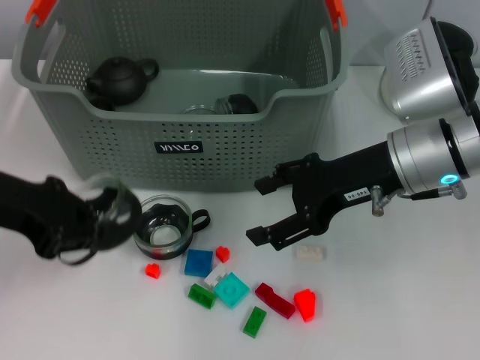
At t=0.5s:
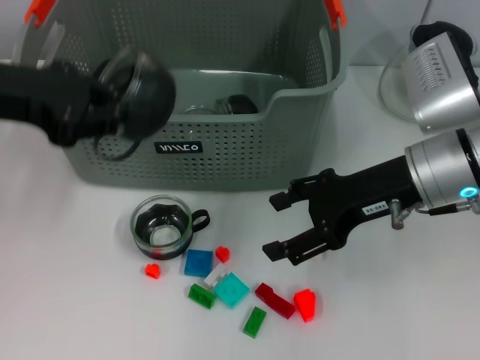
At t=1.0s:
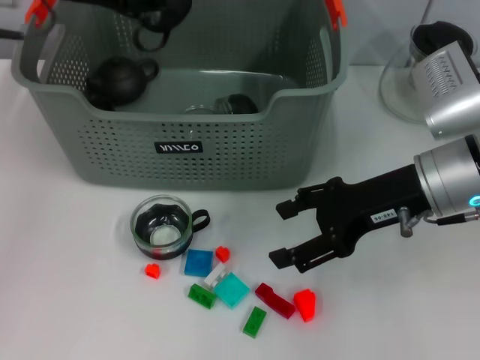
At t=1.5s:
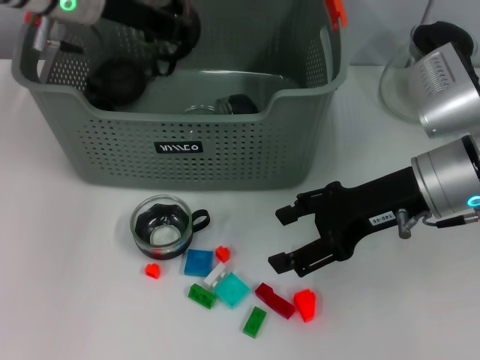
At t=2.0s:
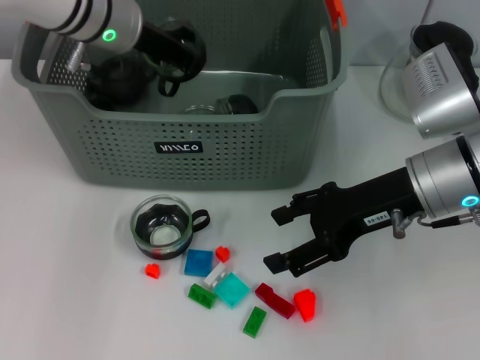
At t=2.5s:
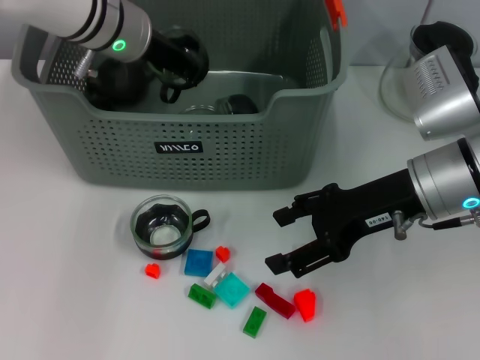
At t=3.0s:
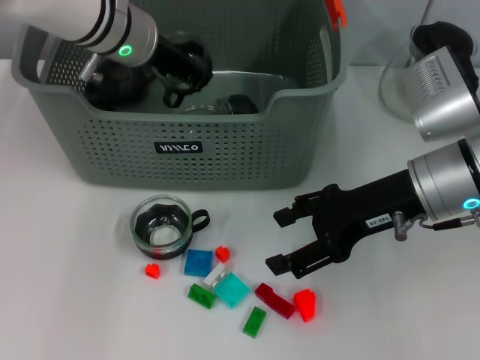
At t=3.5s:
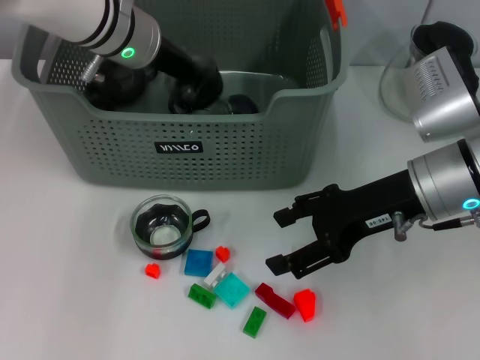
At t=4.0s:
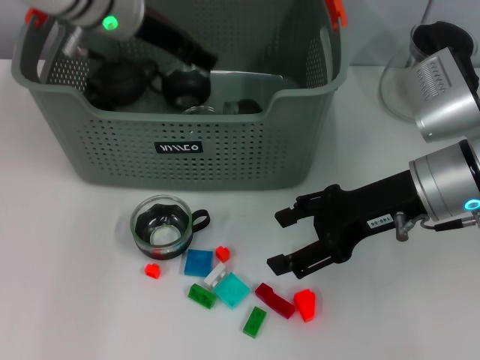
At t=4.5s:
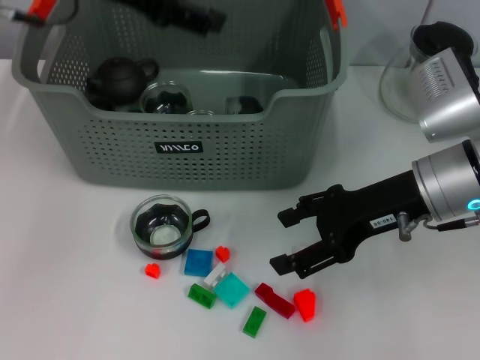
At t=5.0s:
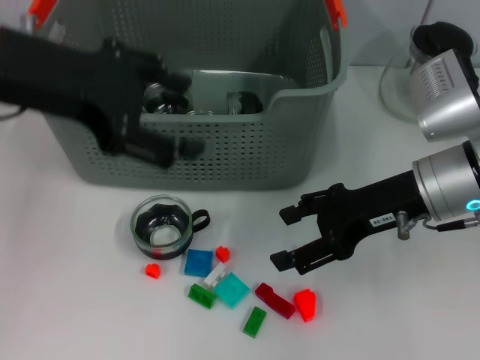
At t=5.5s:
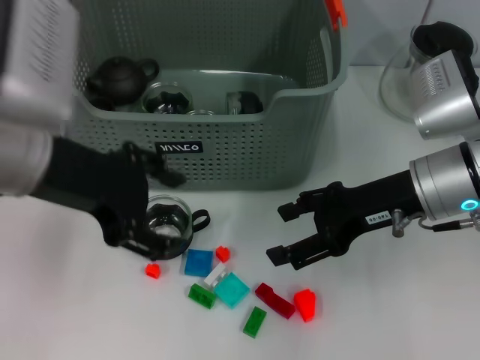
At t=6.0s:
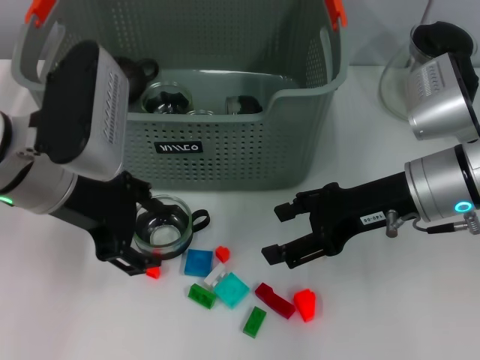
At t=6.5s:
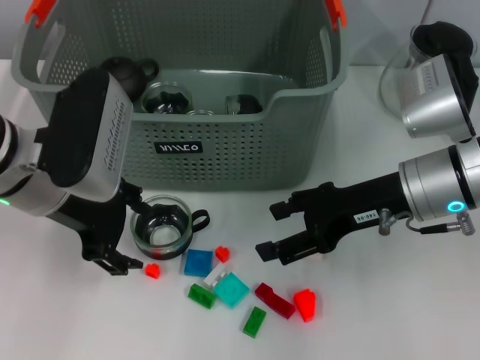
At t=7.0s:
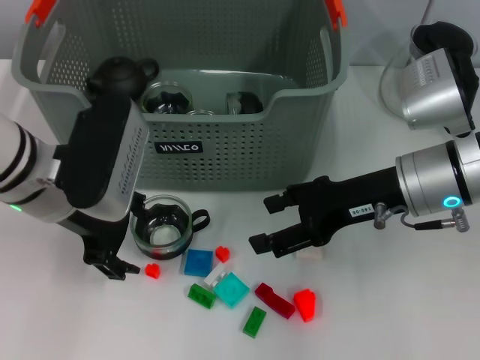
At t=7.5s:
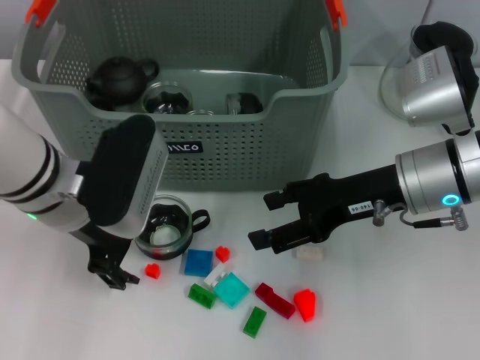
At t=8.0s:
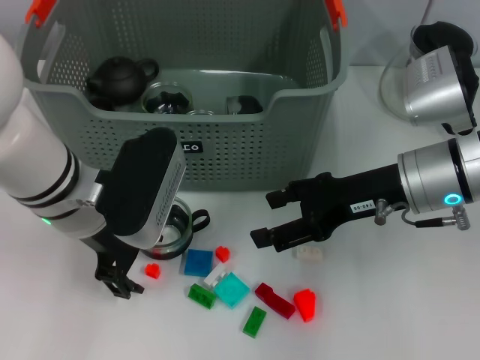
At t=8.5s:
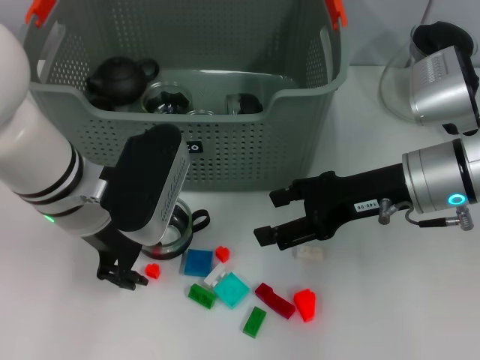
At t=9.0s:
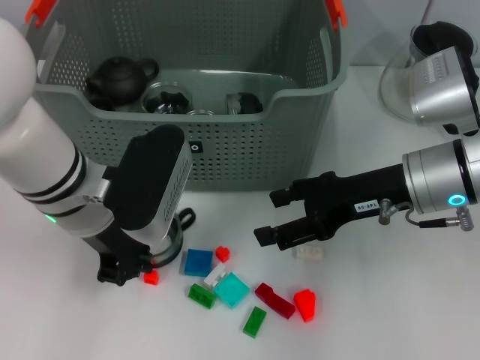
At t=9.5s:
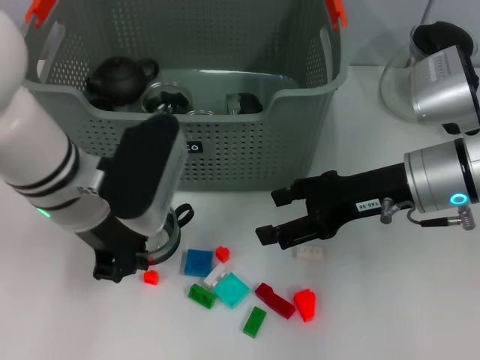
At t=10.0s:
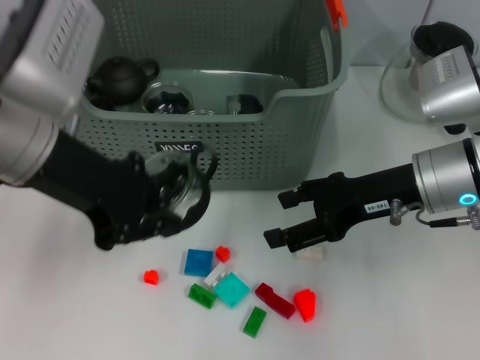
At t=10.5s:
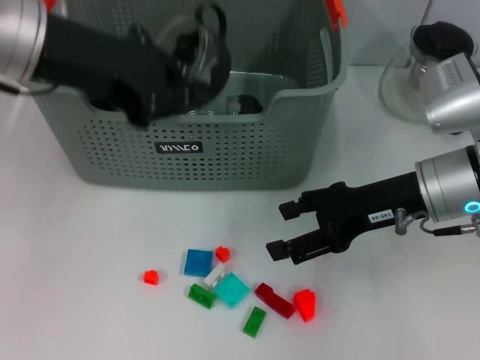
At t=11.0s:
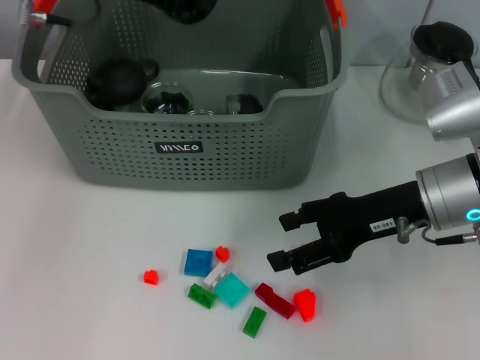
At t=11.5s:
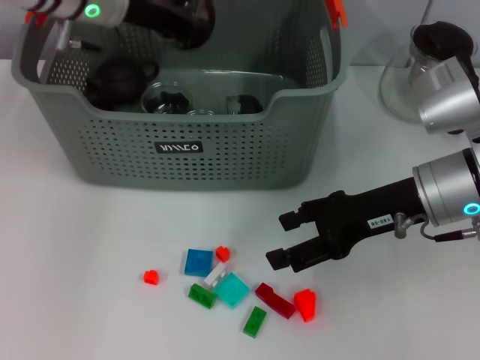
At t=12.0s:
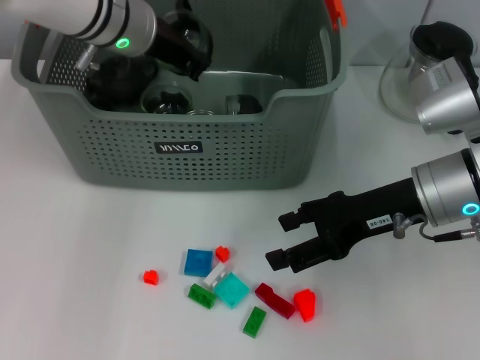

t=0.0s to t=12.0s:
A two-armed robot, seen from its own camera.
Task of the whole recording: pick up the teacup on the table and place it into the storage bin, pick up the block on the table and place it into the storage bin.
Step, t=0.0s to t=3.5s: Place the cup in the storage box with left gripper.
Step, t=4.0s to t=9.0s: Grasp the cup with left gripper.
t=0.0s to t=2.0s: The left gripper is displaced forward and to the right by about 20 cm.
t=2.0s to t=4.0s: The left gripper opens.
t=4.0s to t=6.0s: The left gripper goes approximately 15 cm backward, and opens up.
t=6.0s to t=8.0s: The left gripper shifts by some 5 cm.
t=8.0s to t=10.0s: The left gripper is displaced upward by approximately 10 cm, and closes.
t=10.0s to t=12.0s: The left gripper is displaced forward by about 15 cm.

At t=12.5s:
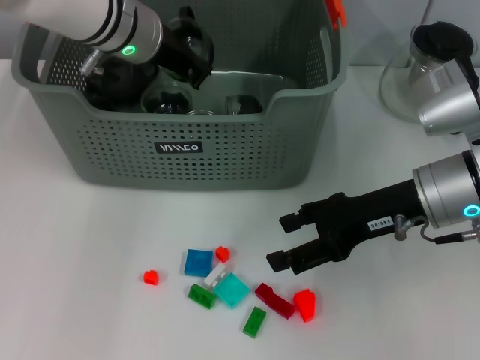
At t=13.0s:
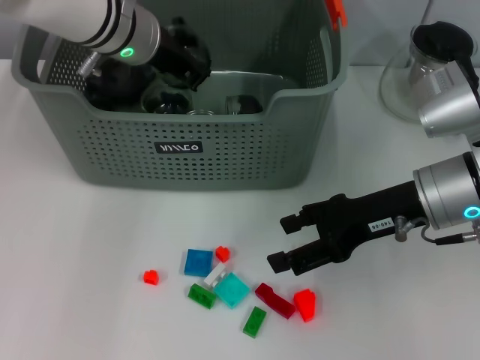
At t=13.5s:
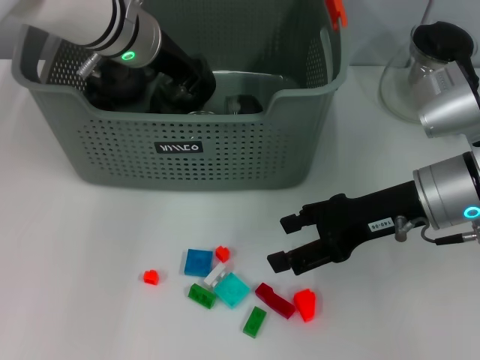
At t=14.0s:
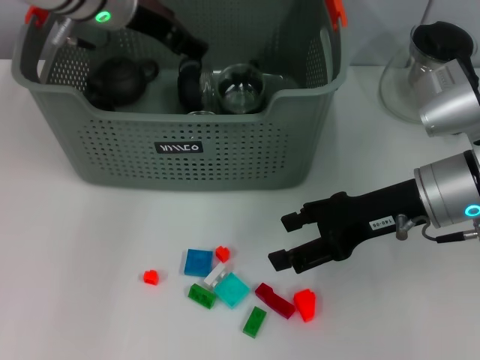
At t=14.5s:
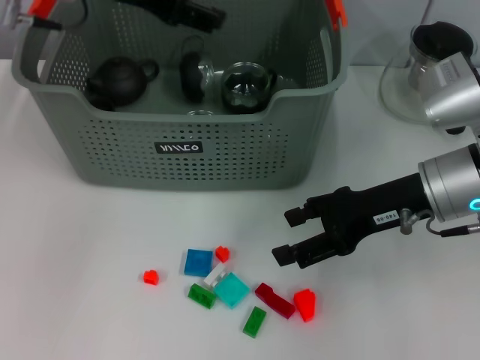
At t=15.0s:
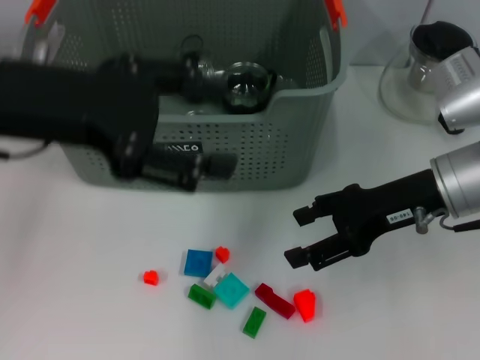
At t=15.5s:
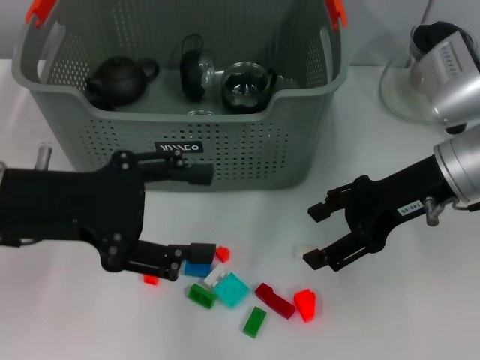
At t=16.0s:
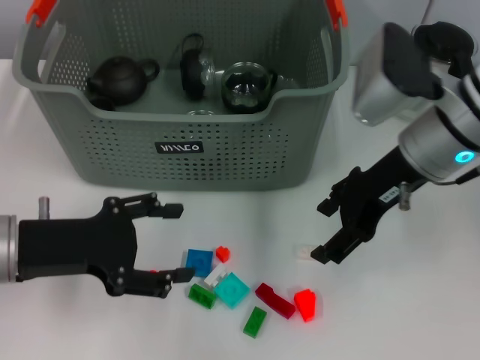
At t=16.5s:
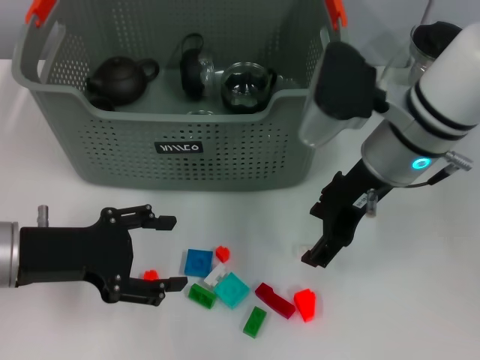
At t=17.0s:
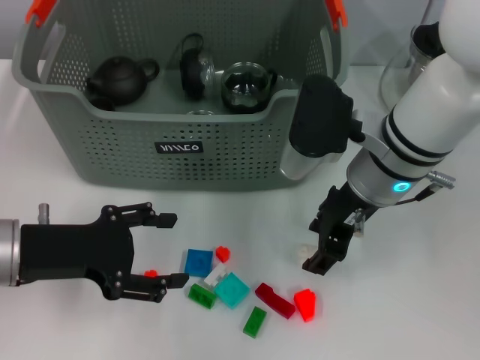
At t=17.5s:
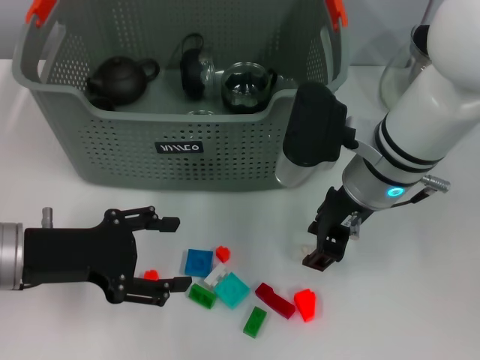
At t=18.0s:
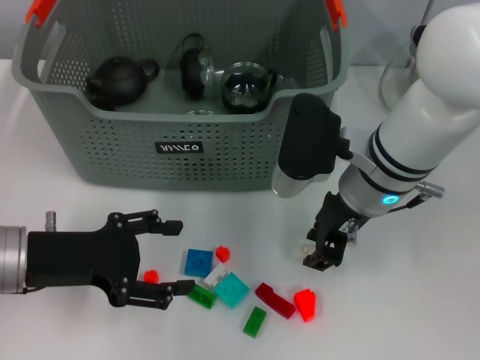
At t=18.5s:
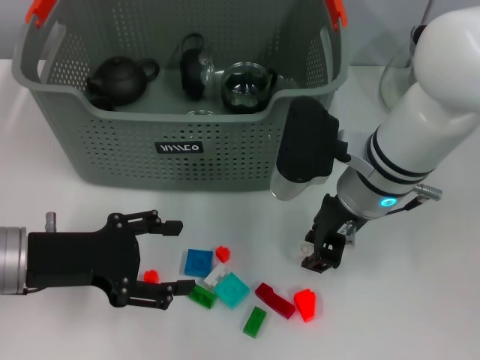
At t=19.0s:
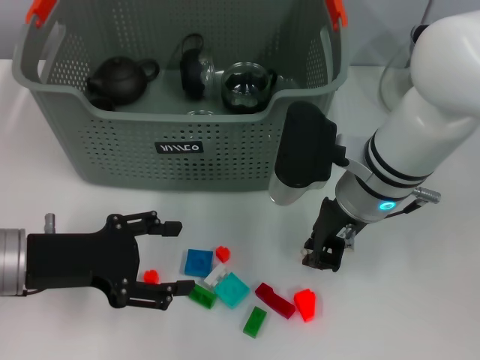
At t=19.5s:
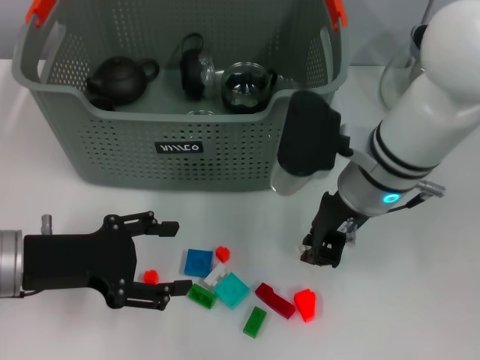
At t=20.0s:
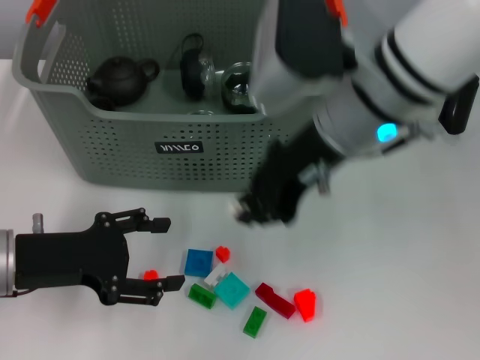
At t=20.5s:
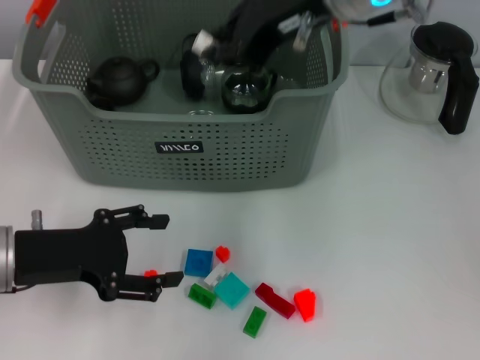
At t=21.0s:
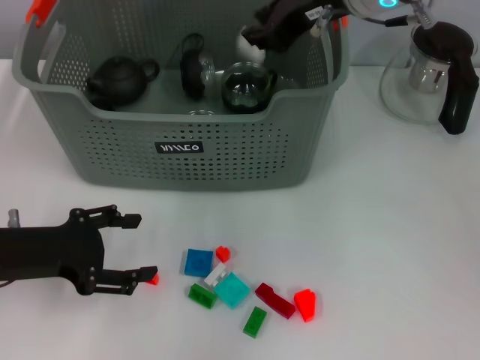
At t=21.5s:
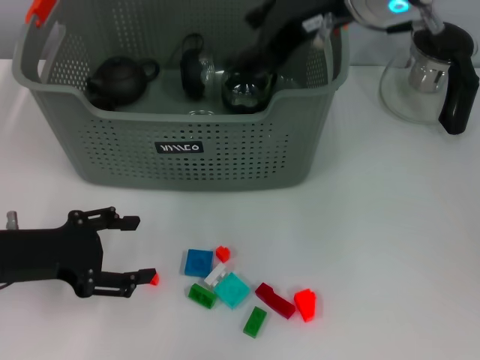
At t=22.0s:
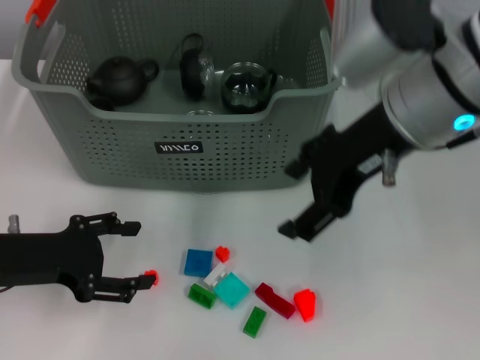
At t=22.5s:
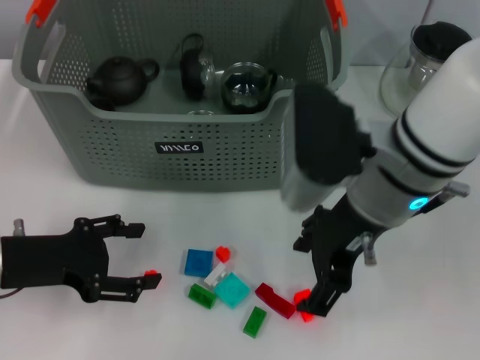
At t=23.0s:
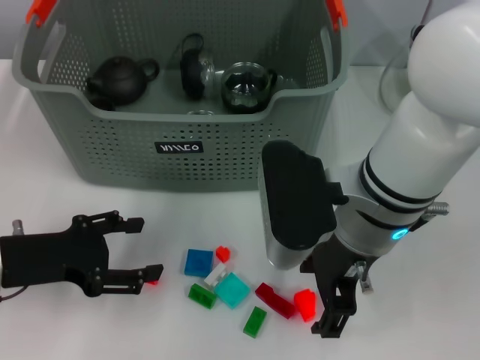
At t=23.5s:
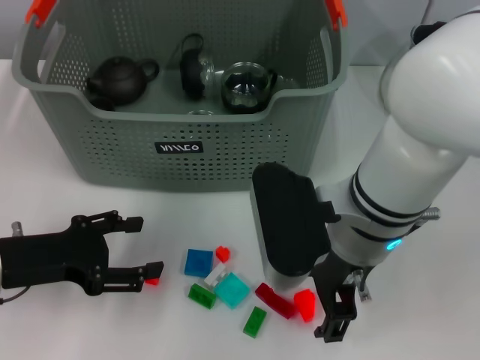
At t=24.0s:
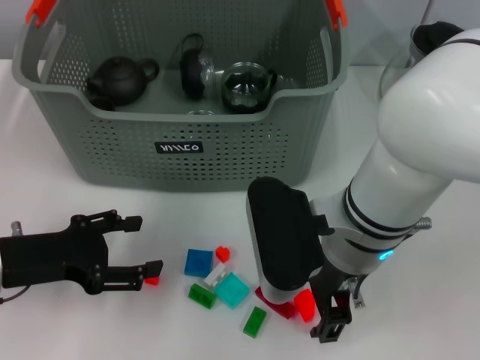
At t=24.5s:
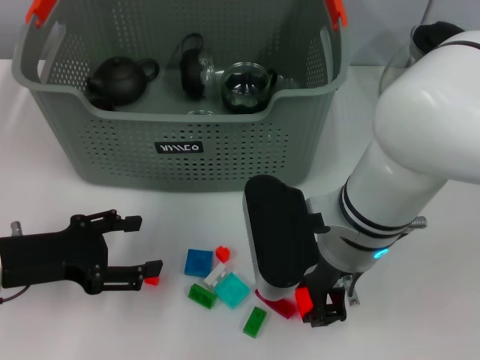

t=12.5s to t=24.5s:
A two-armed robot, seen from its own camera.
Task of the whole recording: pick up the teacup on the table and place it into the storage bin, pick up the block on the table and place it into the storage bin.
Step, t=13.5s to t=19.0s: Grasp the white block with right gripper.
Step, t=19.5s to t=21.0s: Place the white block in the storage box with right gripper.
Step, t=21.5s to t=24.5s: Grasp the orange block with right gripper.
t=12.5s to t=14.5s: The left gripper goes roughly 10 cm upward and backward, and opens.
t=14.5s to t=16.5s: The left gripper moves downward, backward and to the left, some 25 cm, while the right gripper is displaced to the left by about 5 cm.
t=16.5s to t=18.5s: The right gripper closes its fingers.
t=18.5s to t=20.5s: The right gripper shifts approximately 15 cm upward.
t=20.5s to t=22.5s: The right gripper heads downward and backward, covering approximately 15 cm, and opens up.
t=22.5s to t=24.5s: The right gripper travels downward by roughly 5 cm, and closes up.

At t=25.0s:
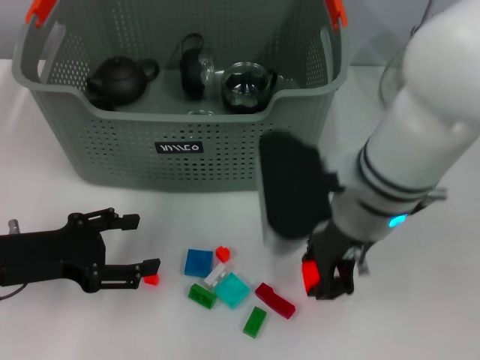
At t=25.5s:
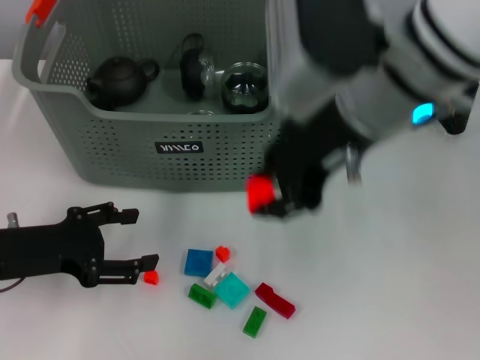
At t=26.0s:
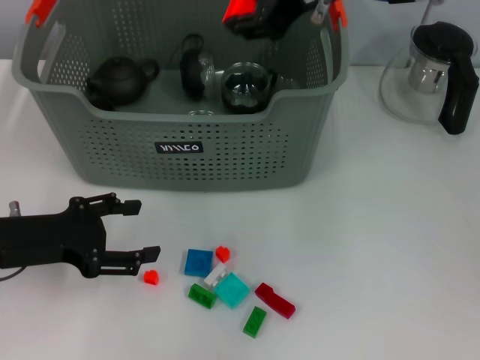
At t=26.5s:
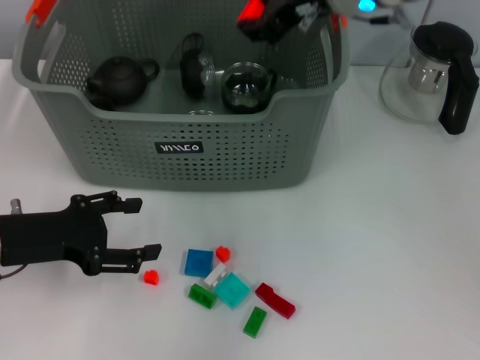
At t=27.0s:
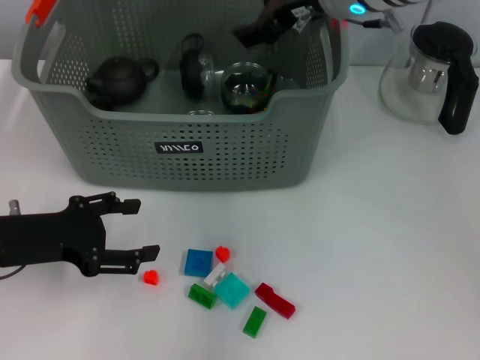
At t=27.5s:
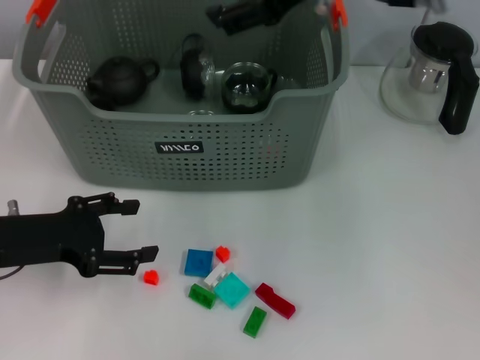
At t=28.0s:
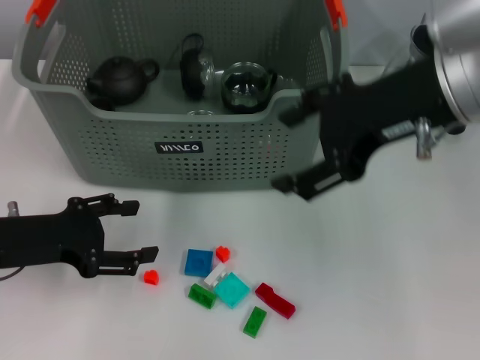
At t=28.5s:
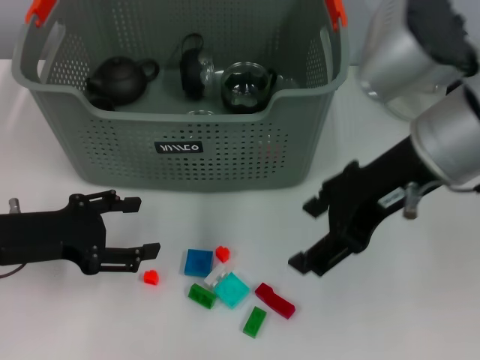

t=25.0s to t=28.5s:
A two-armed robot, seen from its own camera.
Task of the whole recording: pick up the teacup on the table and place it into the storage bin, pick up the block on the table and place it into the storage bin.
Step, t=25.0s to t=26.5s: Place the orange block in the storage box with right gripper.
t=25.0s to t=27.0s: The right gripper travels forward and upward by about 15 cm.
t=27.0s to t=28.5s: The right gripper is displaced backward by roughly 15 cm, and opens its fingers.
